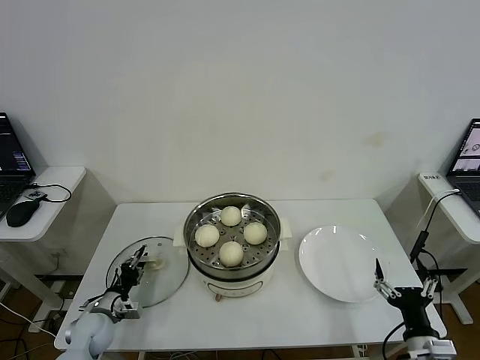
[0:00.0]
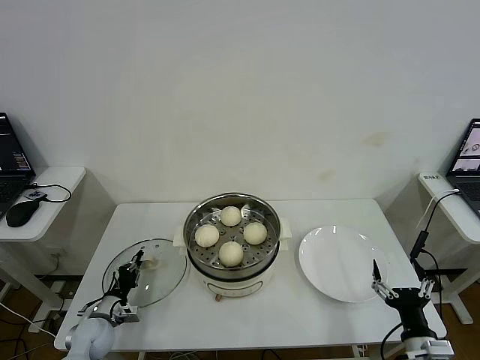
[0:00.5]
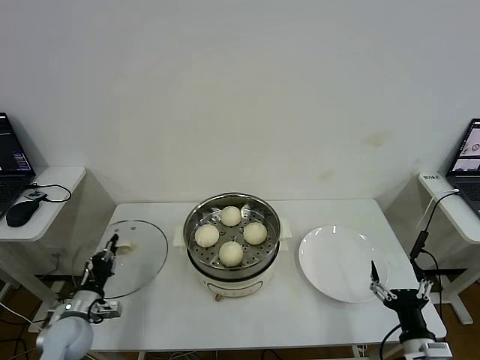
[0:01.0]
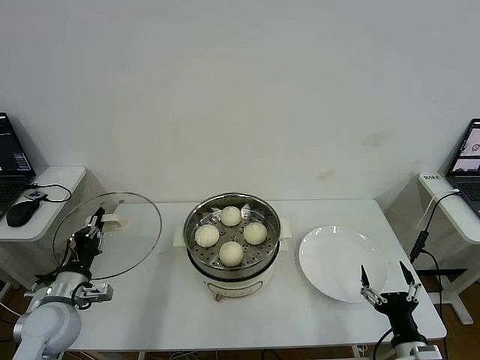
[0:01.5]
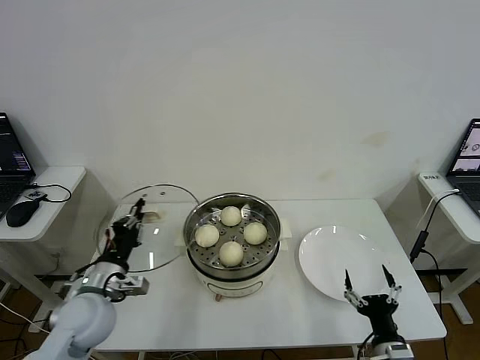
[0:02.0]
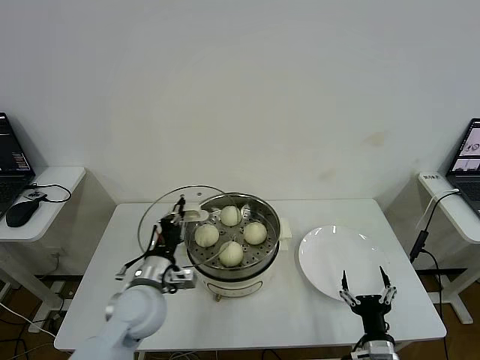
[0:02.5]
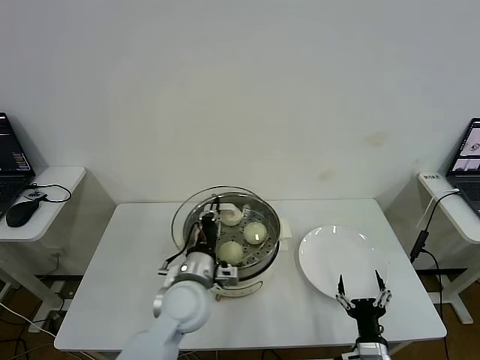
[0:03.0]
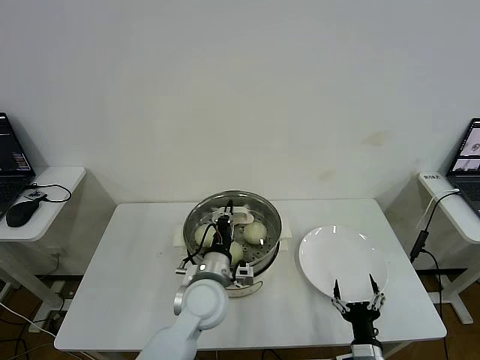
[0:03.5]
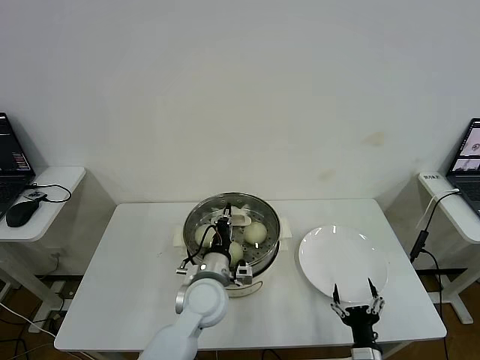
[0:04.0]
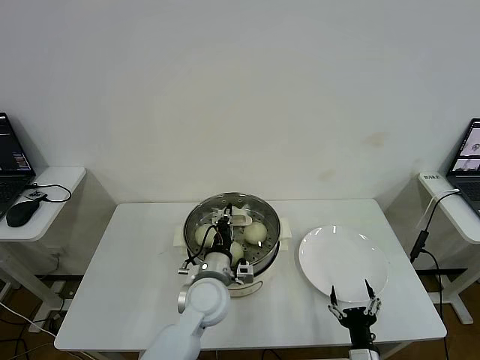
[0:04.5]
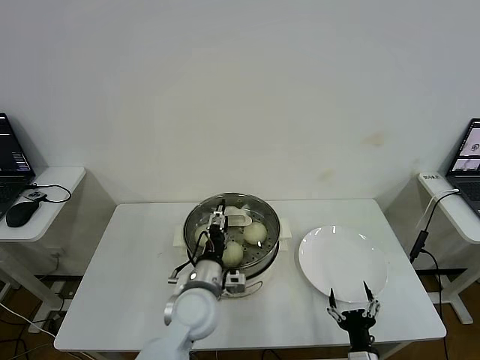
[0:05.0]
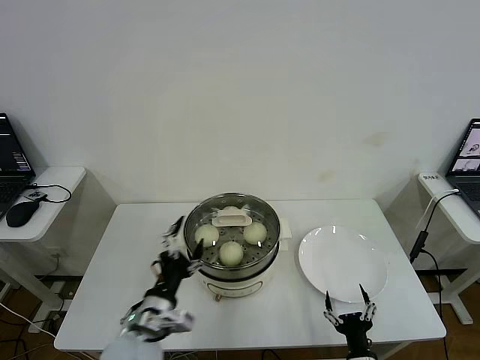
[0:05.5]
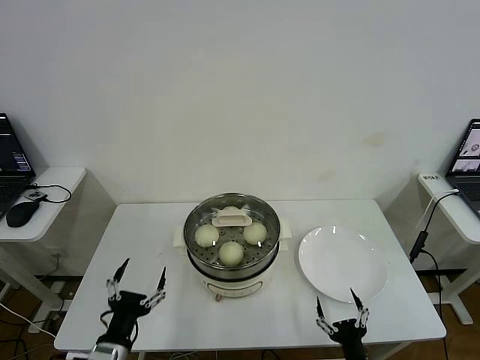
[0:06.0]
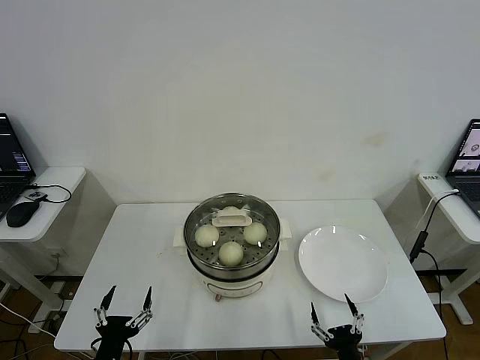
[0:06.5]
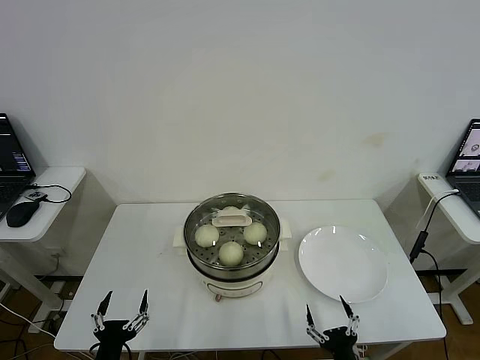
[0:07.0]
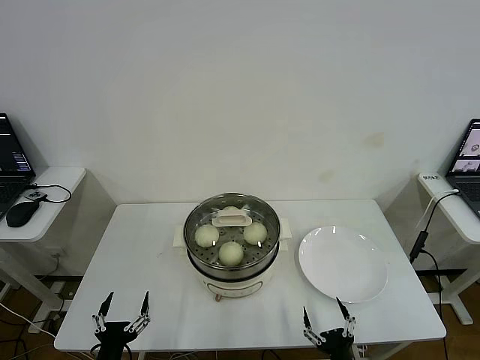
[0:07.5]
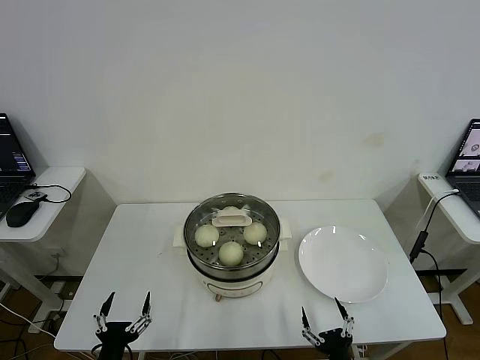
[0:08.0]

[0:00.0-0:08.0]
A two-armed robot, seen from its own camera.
Step, 0:00.5 to 0:04.5: Place the pot lid on the steamer with left gripper.
0:00.0 to 0:02.0: The right gripper shifts by about 5 cm, while the left gripper moves upward and to the right, approximately 20 cm, and closes up.
0:02.0 to 0:04.0: The left gripper travels to the right by roughly 20 cm. The right gripper changes place by some 5 cm.
0:04.0 to 0:06.0: The left gripper goes about 25 cm to the left and backward, and opens.
0:06.0 to 0:08.0: The left gripper shifts roughly 5 cm downward.

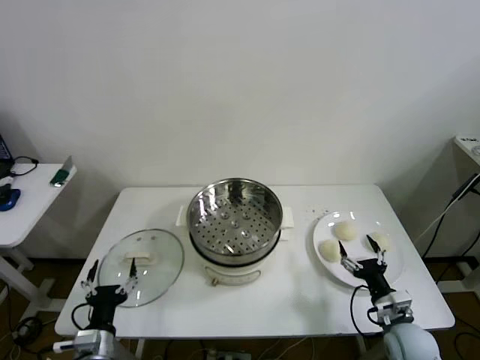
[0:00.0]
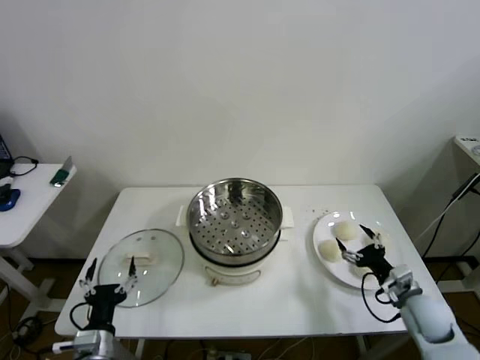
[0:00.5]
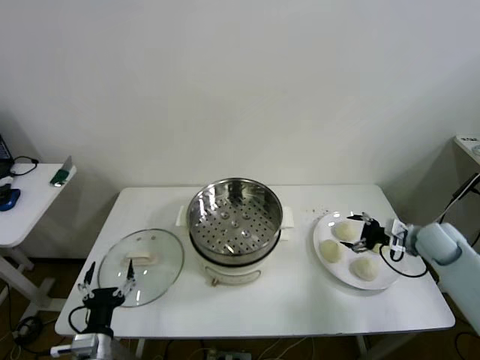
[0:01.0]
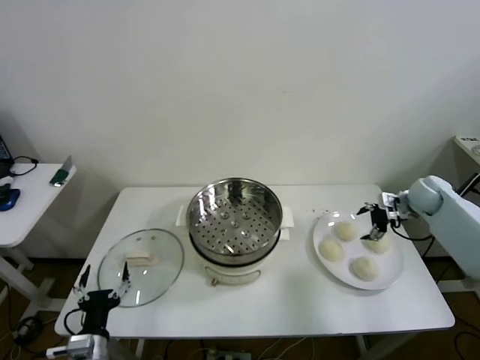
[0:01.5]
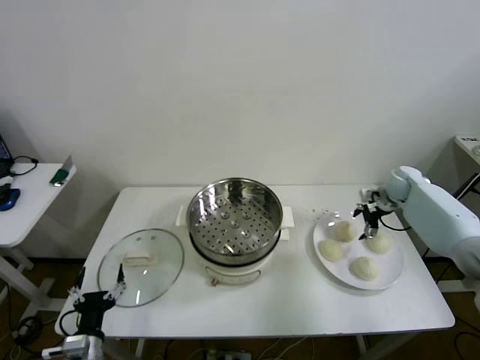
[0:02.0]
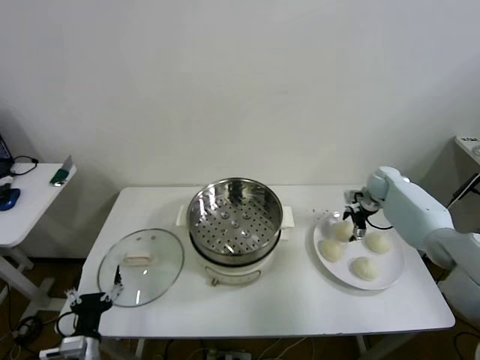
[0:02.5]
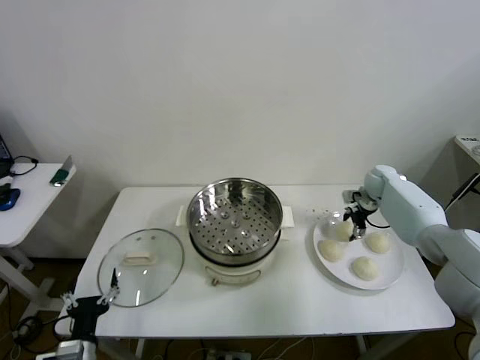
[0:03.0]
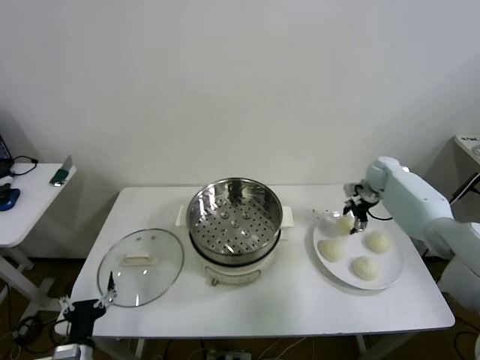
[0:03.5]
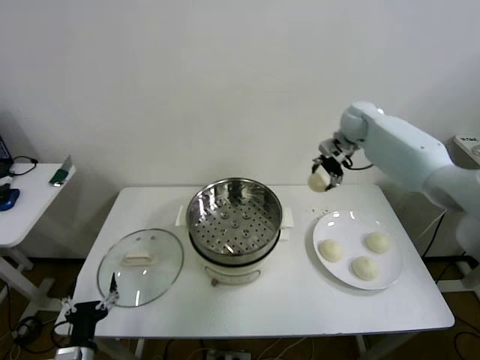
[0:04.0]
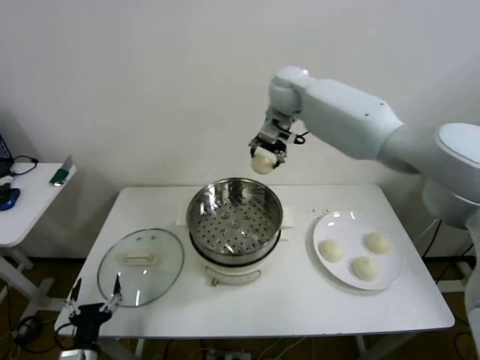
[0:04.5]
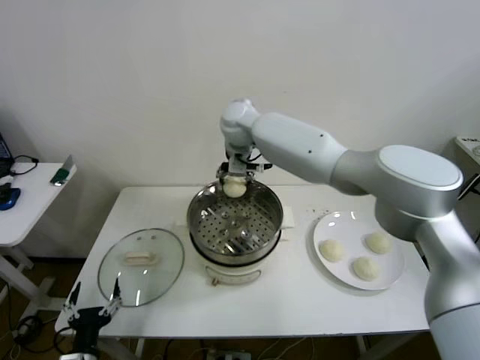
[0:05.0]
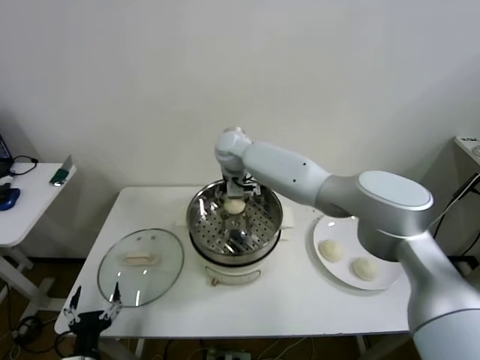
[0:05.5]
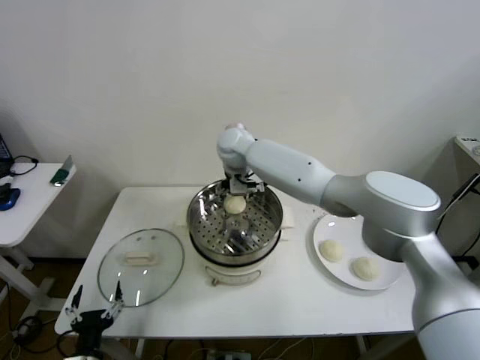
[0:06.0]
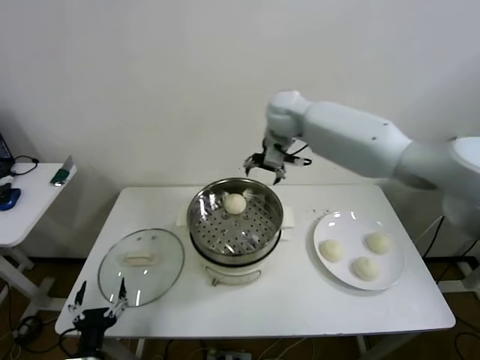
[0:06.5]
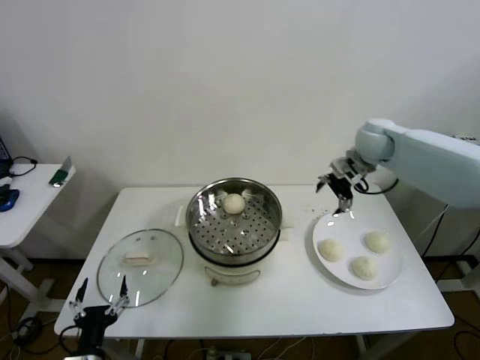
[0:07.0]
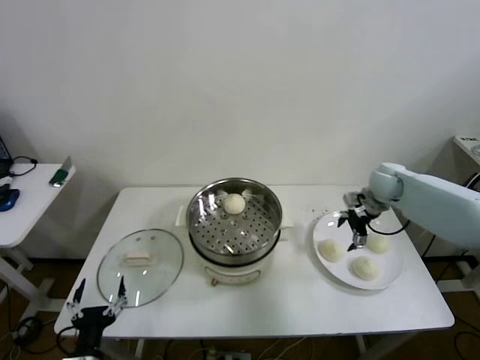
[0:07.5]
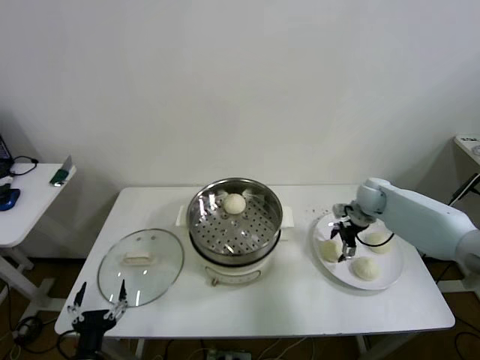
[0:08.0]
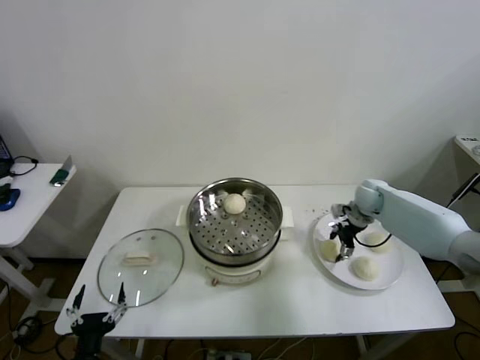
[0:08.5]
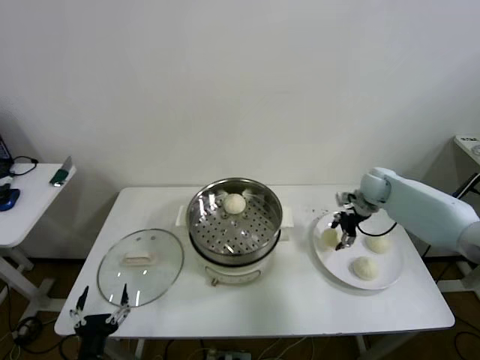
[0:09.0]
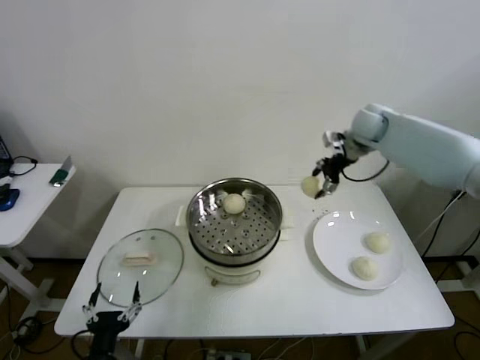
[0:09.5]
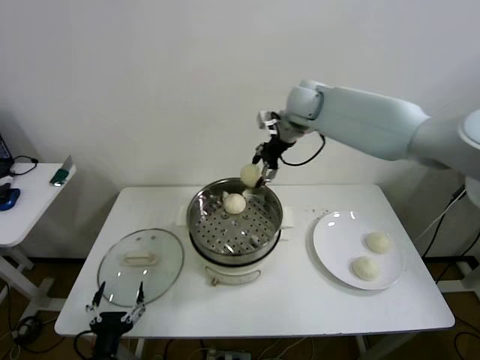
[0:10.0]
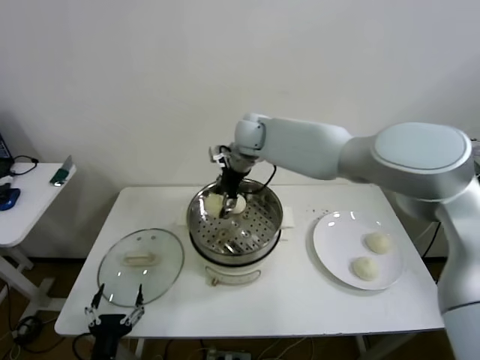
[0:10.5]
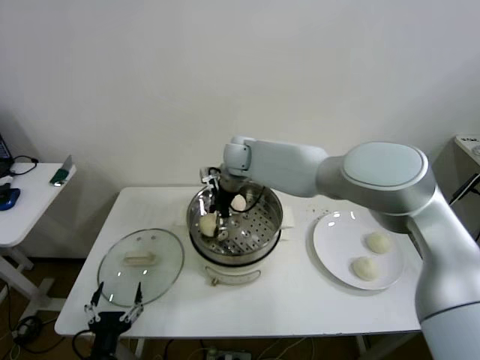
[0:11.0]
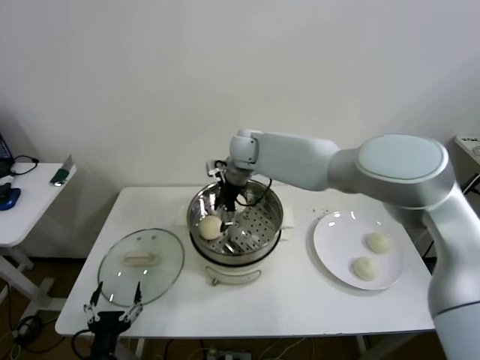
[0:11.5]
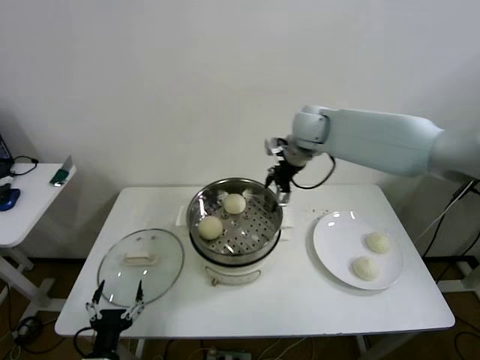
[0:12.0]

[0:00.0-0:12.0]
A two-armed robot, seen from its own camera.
Step, 0:00.0 to 0:02.5: Grasp the baozi in the plate with right gripper.
Step, 0:03.0 to 0:06.0: Place the baozi on the steamer with right gripper.
Step, 0:06.5 to 0:08.5: Grasp the baozi in the plate with right gripper.
Step, 0:09.0 to 0:11.5: Place the baozi on the steamer with right gripper.
0:02.0 to 0:04.0: The right gripper moves upward and to the left, approximately 30 cm, and closes up.
0:04.0 to 0:06.0: The right gripper travels to the left by roughly 20 cm, and opens its fingers.
0:06.0 to 0:08.0: The right gripper shifts roughly 40 cm to the right and downward.
0:08.0 to 0:10.0: The right gripper travels to the left and upward by roughly 35 cm, and closes its fingers.
0:10.0 to 0:12.0: The right gripper travels to the right by some 10 cm, and opens its fingers.

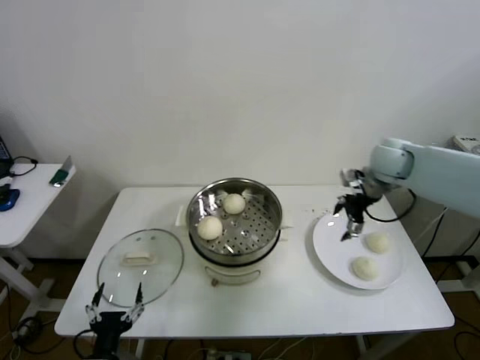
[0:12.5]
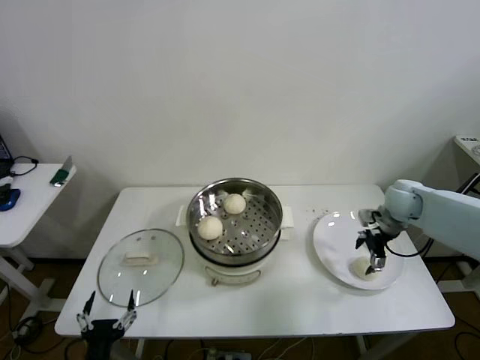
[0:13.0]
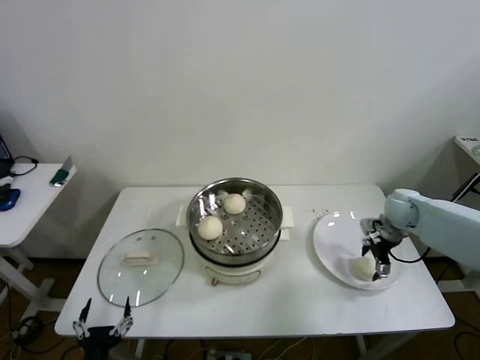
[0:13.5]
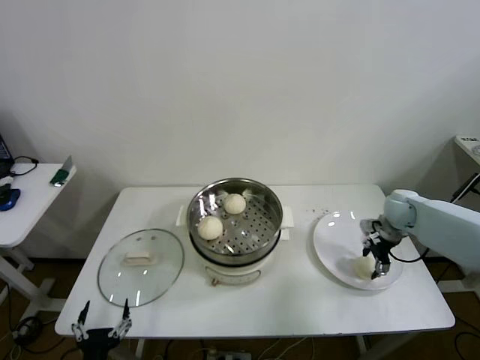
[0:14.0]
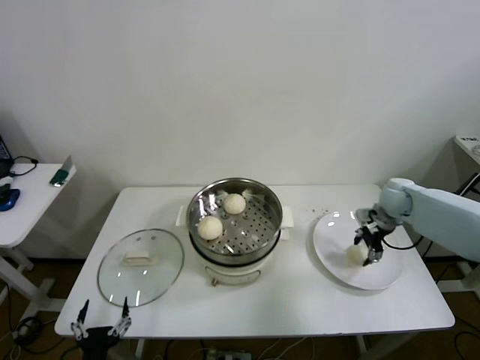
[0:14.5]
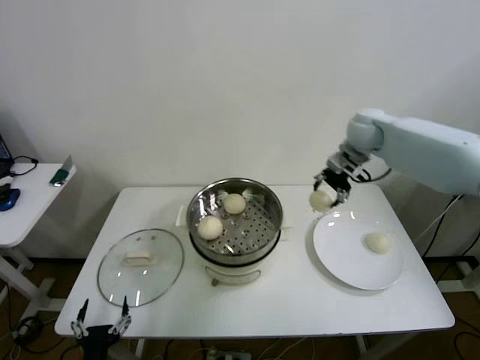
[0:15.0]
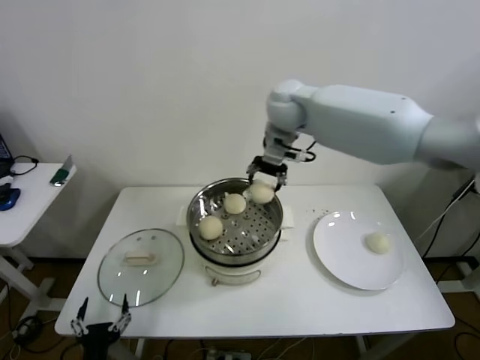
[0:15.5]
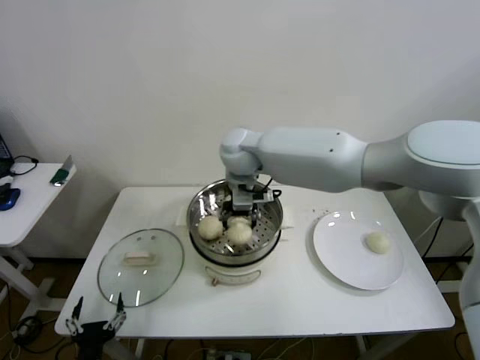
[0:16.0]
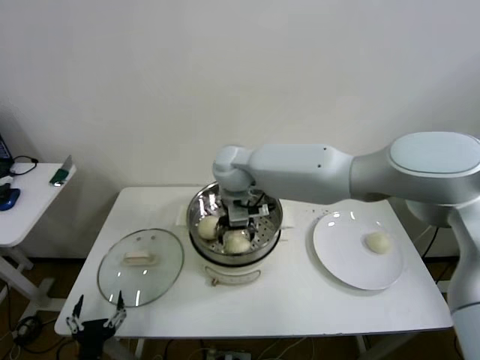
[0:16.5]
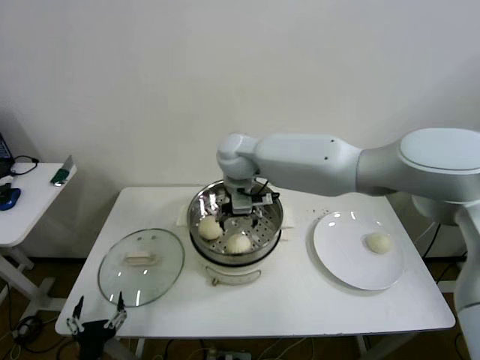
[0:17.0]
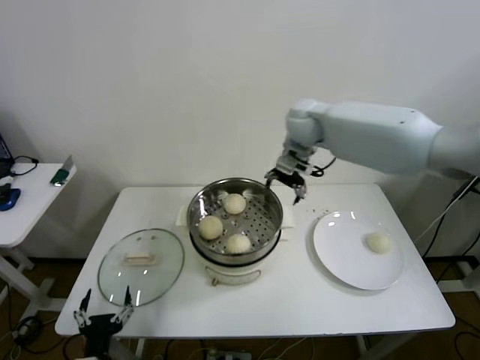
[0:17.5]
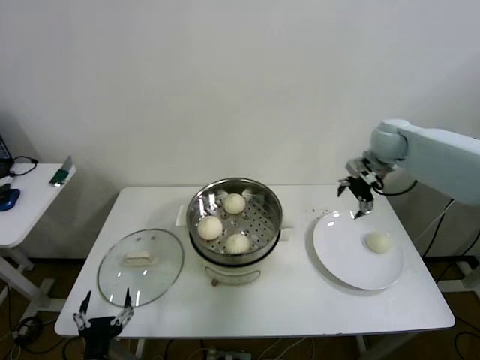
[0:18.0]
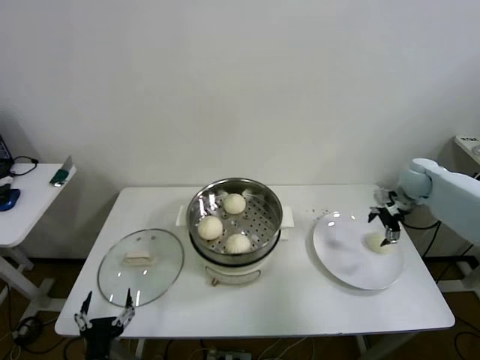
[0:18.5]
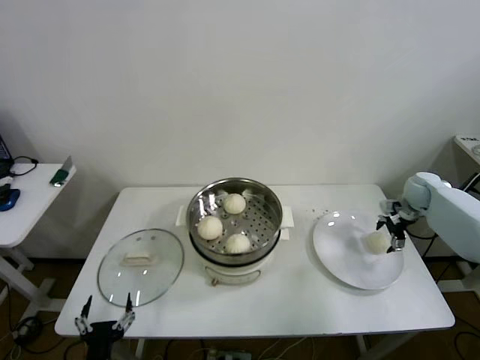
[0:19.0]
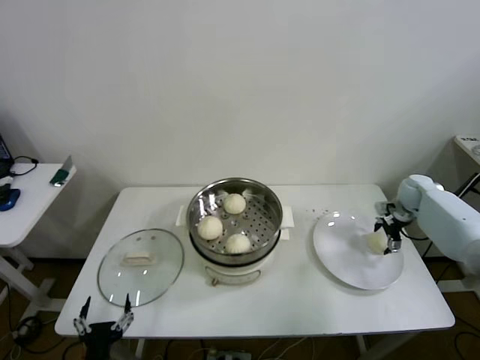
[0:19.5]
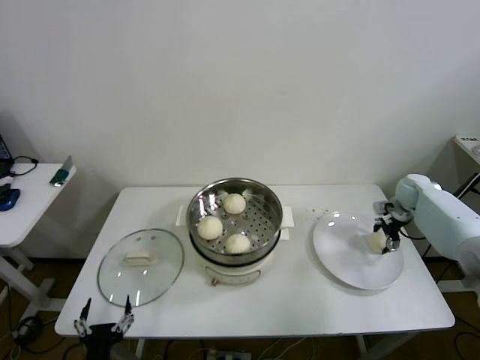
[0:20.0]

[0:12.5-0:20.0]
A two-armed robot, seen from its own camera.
Step, 0:12.5 to 0:14.0: Grasp the baozi in the plate with right gripper.
Step, 0:14.5 to 0:17.0: Place the baozi on the steamer with right gripper.
0:12.5 to 0:14.5: The right gripper heads downward, covering approximately 10 cm, and closes its fingers.
0:14.5 to 0:16.5: The right gripper heads to the left, covering about 40 cm, and opens up.
0:16.5 to 0:18.0: The right gripper is displaced to the right by approximately 40 cm.
0:18.0 to 0:20.0: The right gripper travels downward and to the right by roughly 20 cm, and closes.
